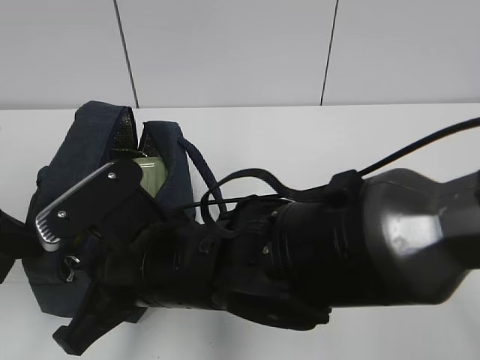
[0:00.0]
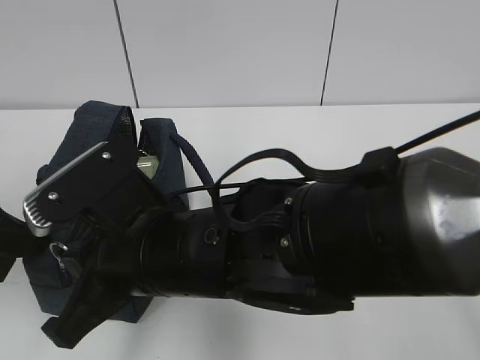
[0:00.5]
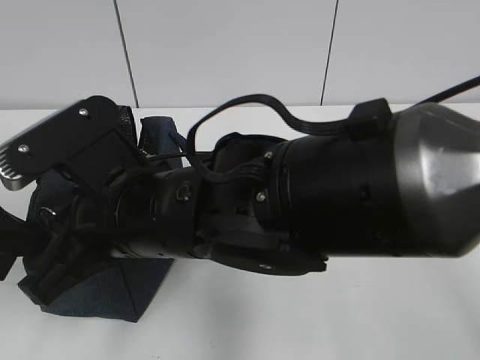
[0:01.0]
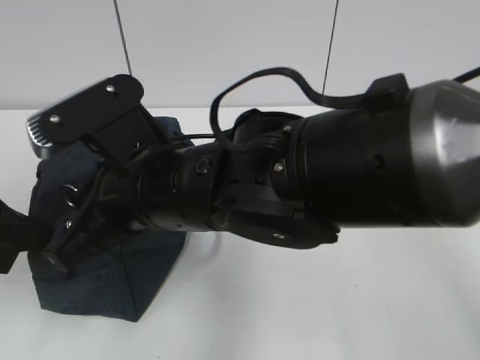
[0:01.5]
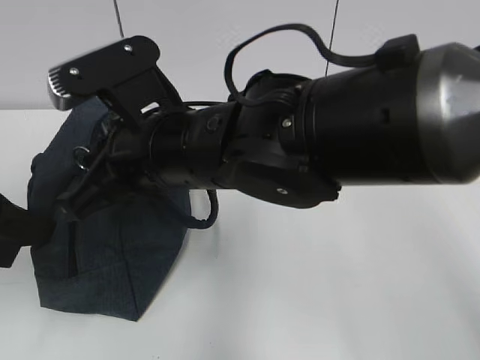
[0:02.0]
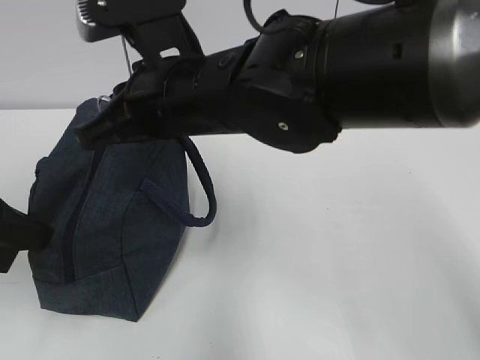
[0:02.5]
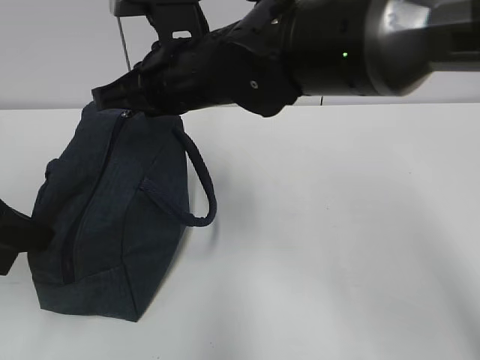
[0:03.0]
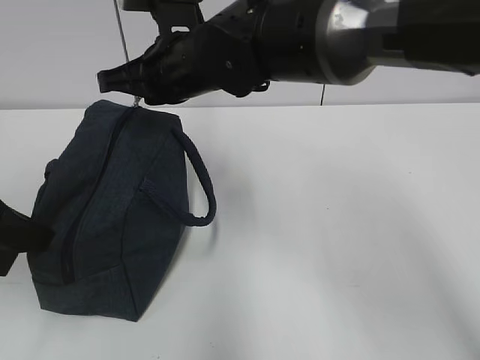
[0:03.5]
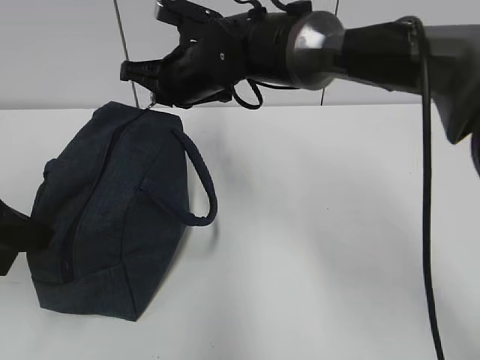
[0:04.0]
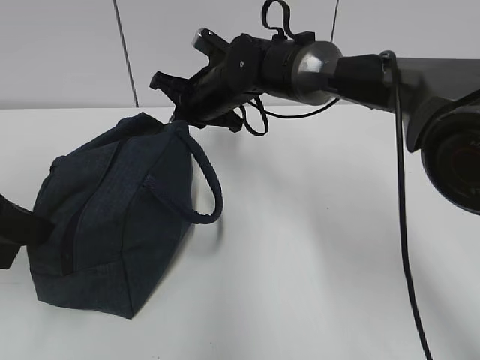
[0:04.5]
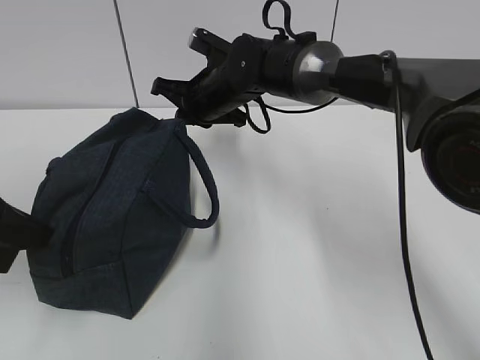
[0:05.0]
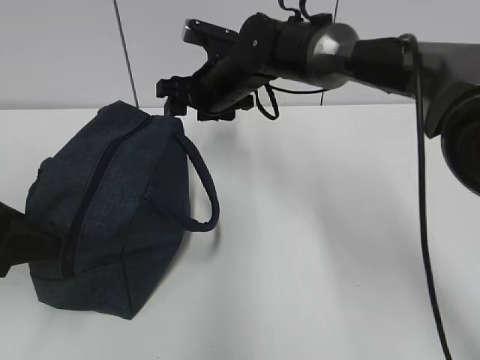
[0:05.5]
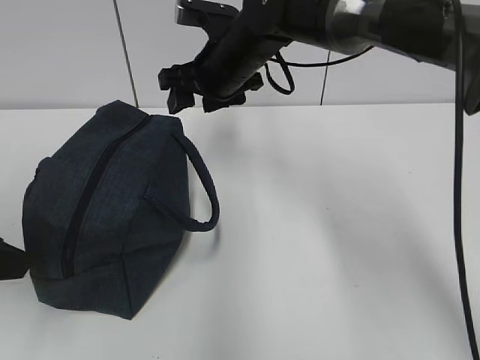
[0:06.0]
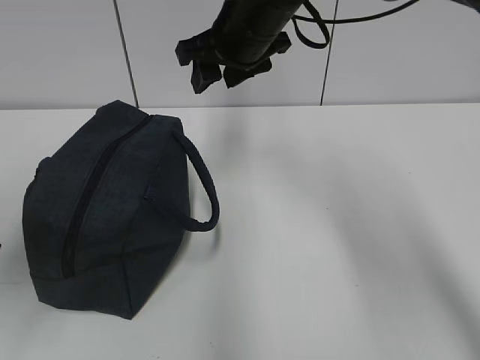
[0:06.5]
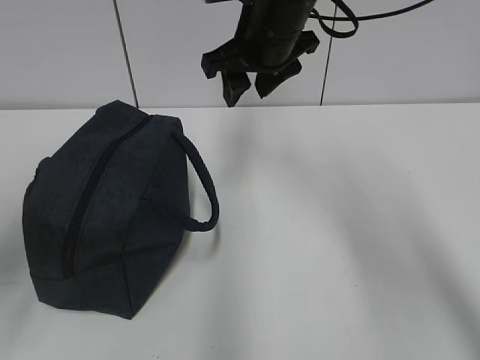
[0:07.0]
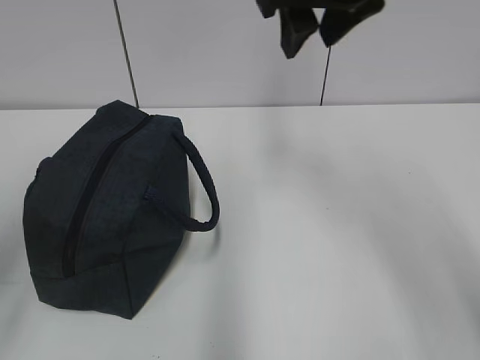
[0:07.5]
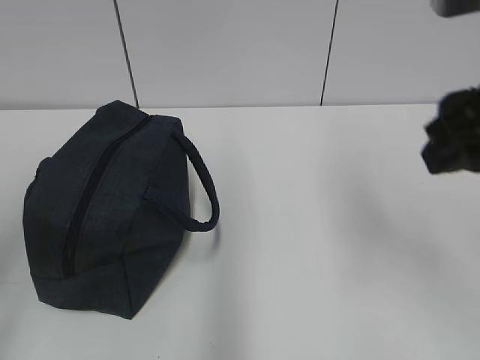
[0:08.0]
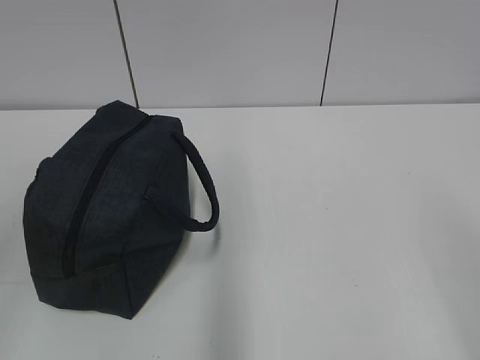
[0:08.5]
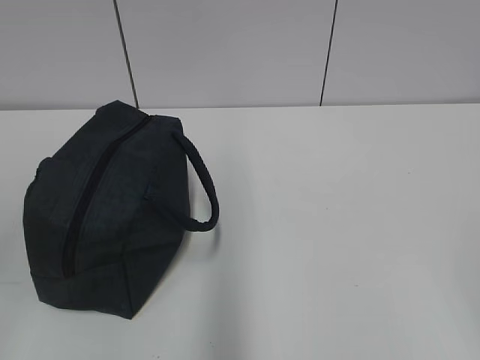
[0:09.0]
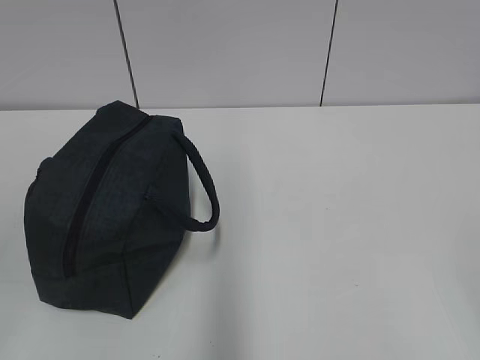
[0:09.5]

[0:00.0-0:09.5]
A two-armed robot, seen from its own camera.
0:00.0 to 0:02.0: The right gripper is displaced upward and forward by some 10 cm.
0:02.0 to 0:04.0: The right gripper moves forward, approximately 15 cm.
0:04.0 to 0:05.5: The right gripper opens. The left gripper opens.
0:05.5 to 0:07.5: The right gripper moves upward, backward and to the right, roughly 25 cm, while the left gripper shifts roughly 10 cm backward and upward.
0:07.5 to 0:09.5: The left gripper shifts approximately 15 cm backward, while the right gripper is displaced backward and to the right by some 40 cm.
